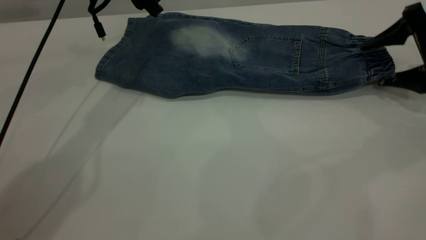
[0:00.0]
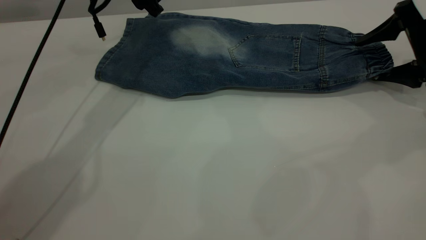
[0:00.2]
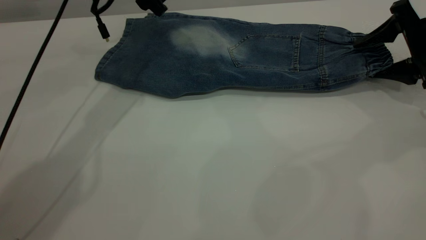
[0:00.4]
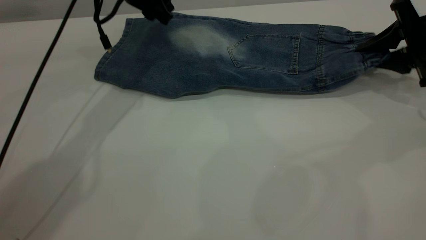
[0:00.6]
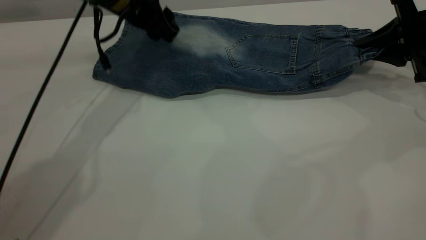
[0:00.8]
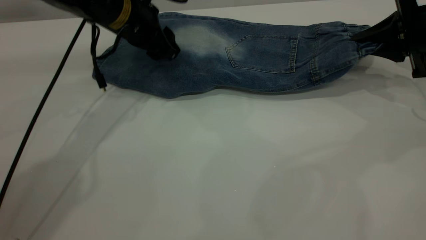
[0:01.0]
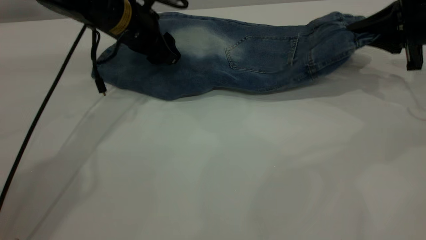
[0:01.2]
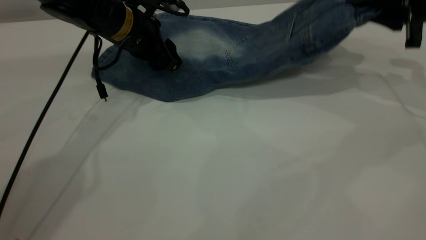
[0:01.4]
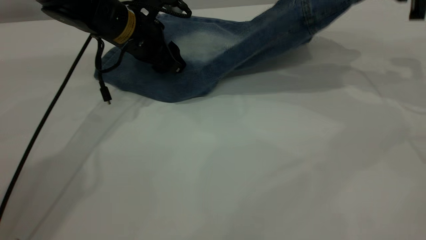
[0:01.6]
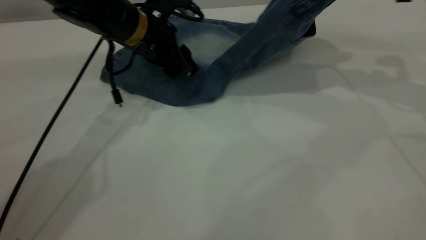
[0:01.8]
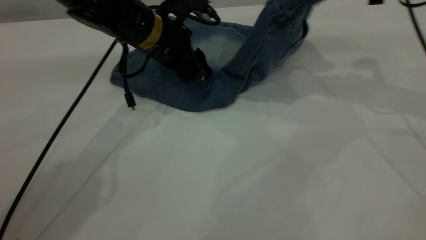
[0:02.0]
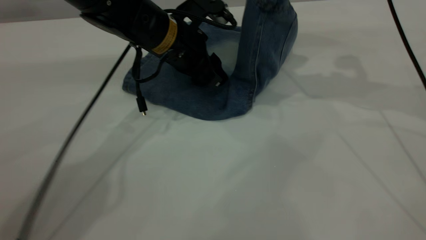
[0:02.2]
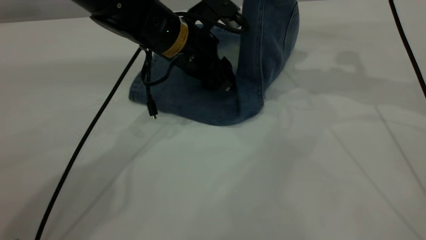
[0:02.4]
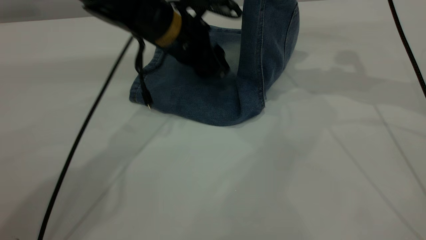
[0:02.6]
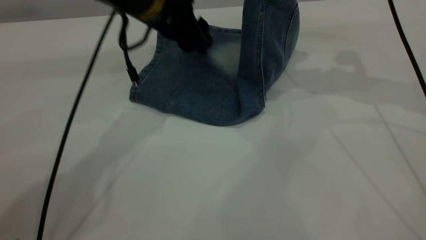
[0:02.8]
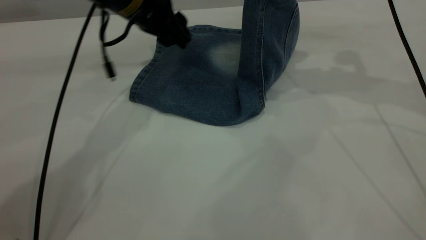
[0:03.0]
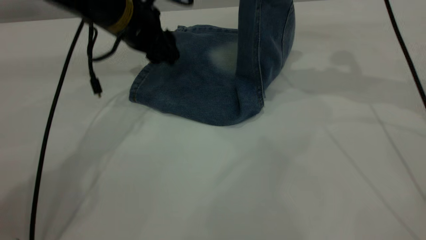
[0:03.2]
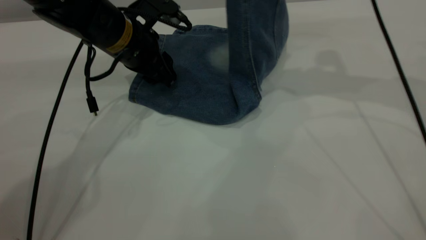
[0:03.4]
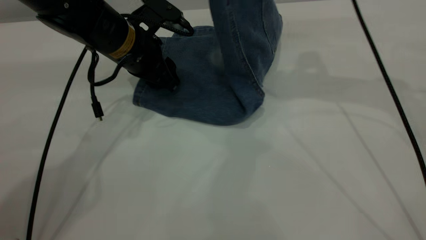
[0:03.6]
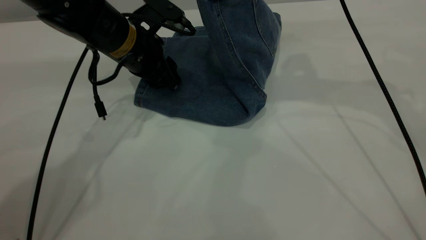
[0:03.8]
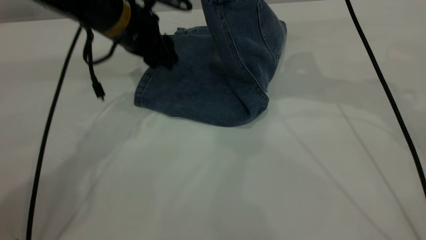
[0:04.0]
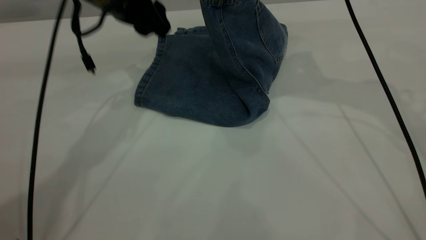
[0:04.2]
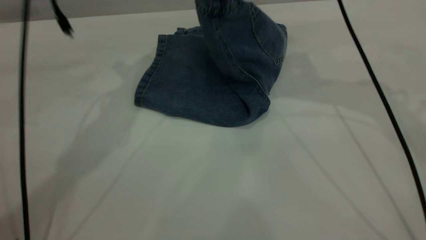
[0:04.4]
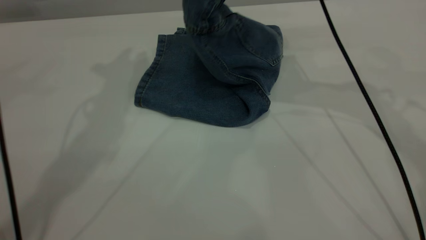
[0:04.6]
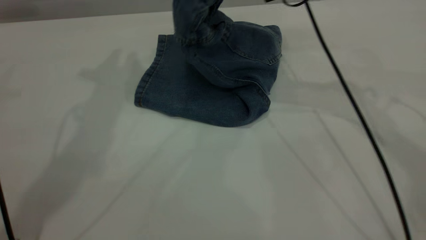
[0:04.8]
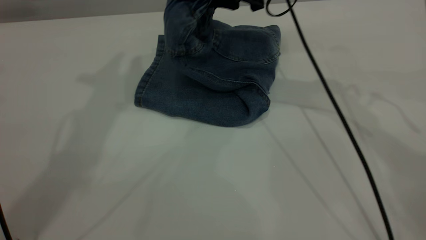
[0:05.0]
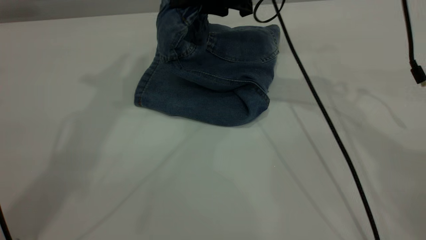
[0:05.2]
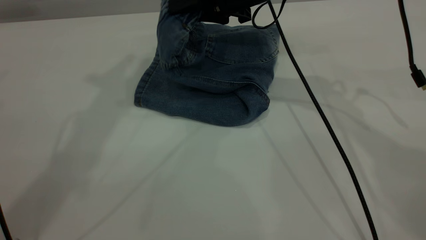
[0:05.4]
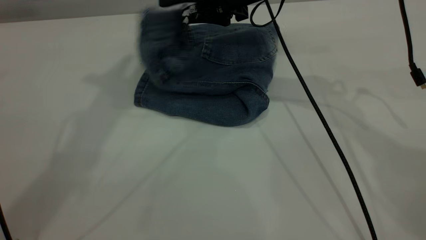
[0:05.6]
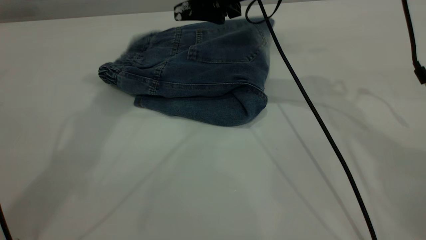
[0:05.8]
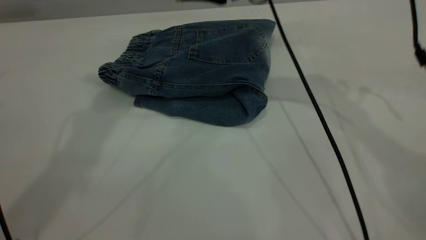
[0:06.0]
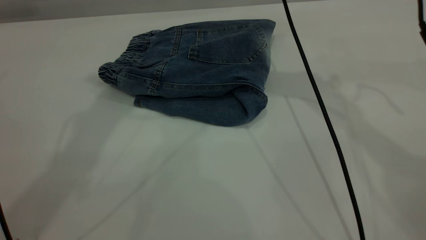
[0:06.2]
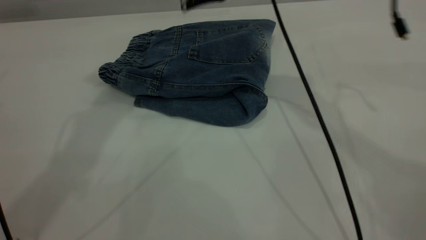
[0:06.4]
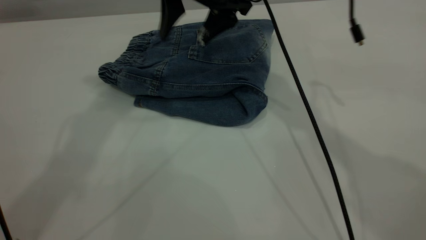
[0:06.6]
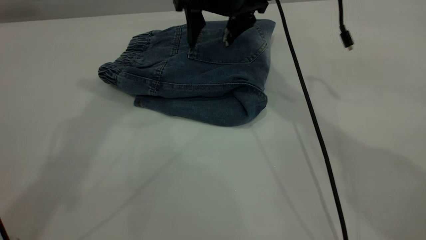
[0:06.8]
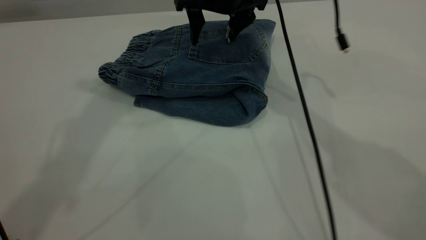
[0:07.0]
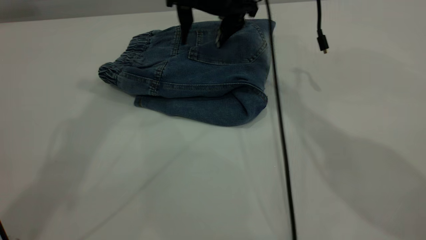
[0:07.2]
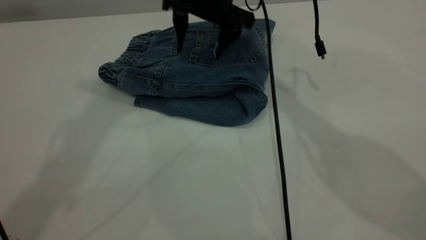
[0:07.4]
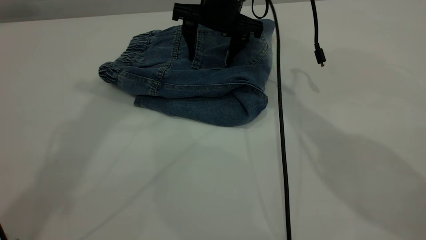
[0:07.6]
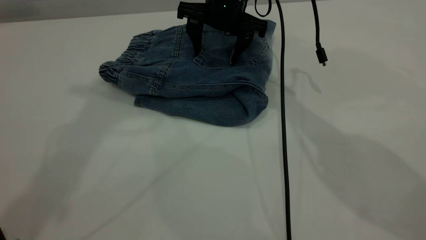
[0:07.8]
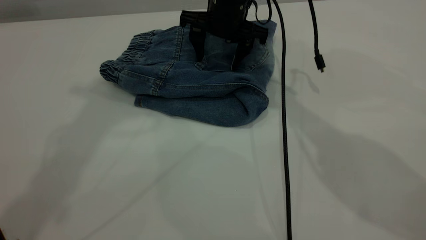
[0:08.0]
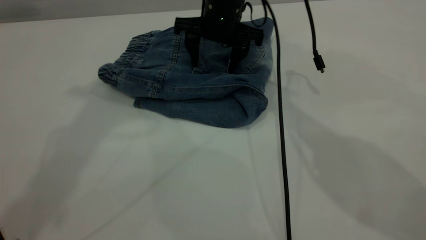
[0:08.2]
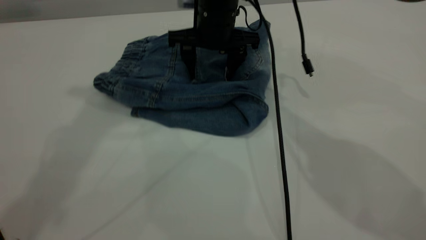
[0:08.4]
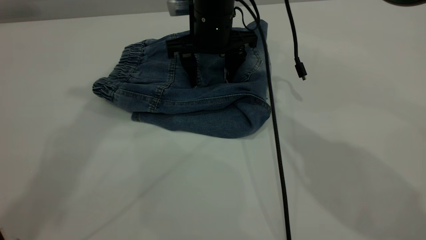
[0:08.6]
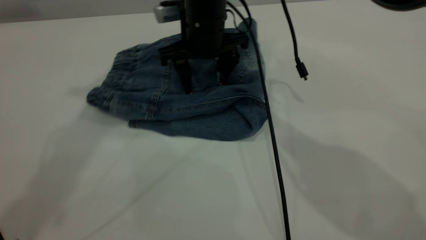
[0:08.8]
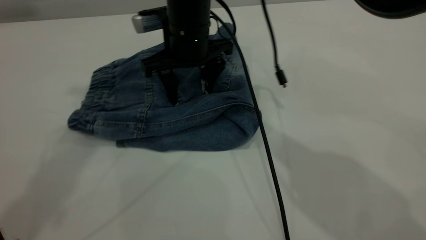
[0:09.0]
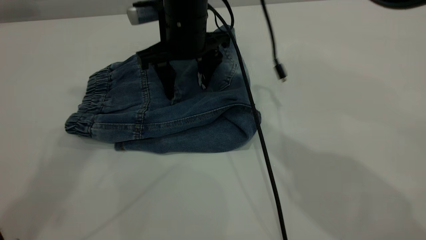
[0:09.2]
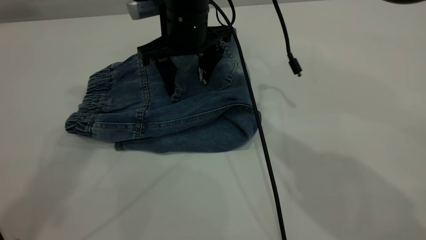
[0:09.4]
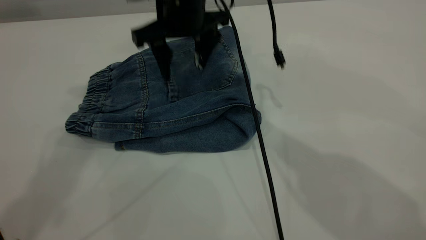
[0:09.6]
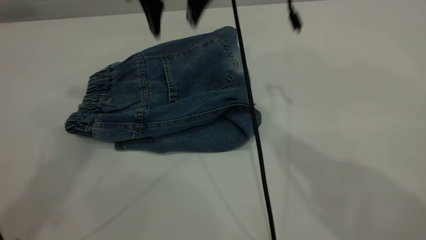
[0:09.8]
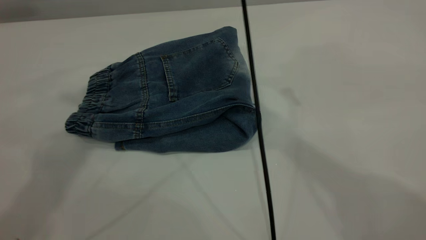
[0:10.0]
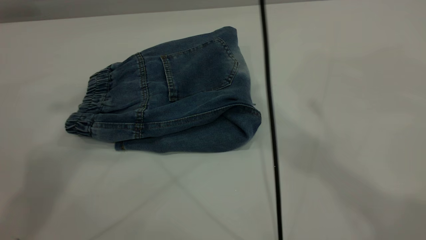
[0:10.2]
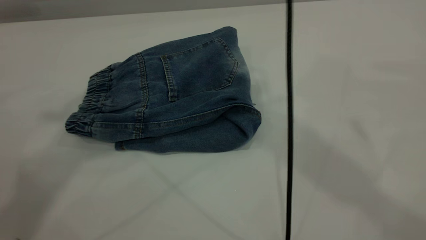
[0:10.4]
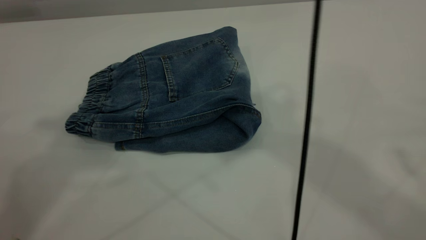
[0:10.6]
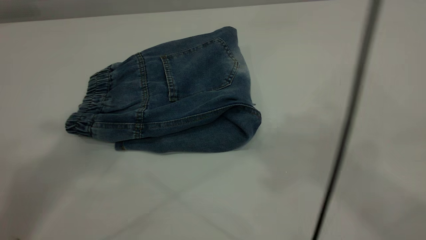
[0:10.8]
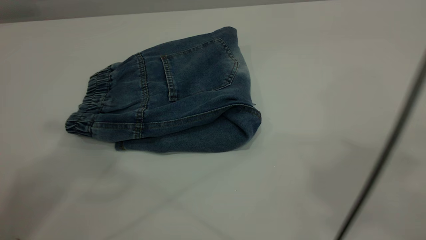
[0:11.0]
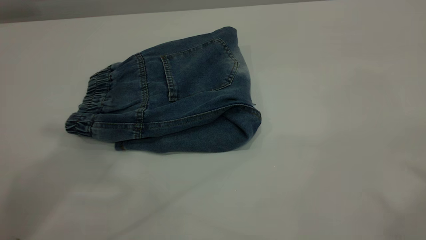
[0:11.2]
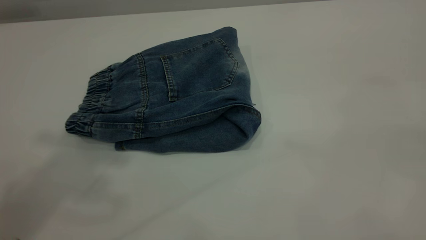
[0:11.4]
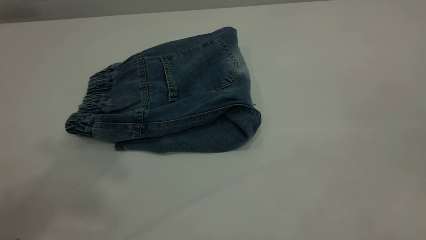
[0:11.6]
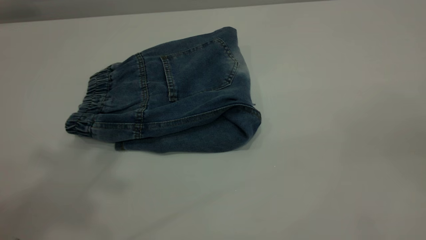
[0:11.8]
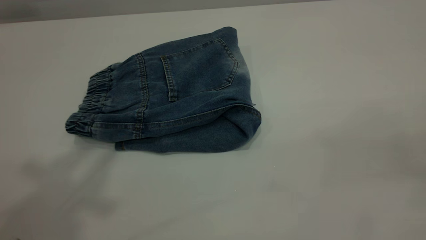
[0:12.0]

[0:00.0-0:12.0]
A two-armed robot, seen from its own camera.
Step, 0.0 to 6.0 s: Fold your pants from right to left.
0.0 to 1.6 s: The right gripper heads upward, covering some 10 cm, and closes its fingers. The left gripper travels downward and backward by about 10 cm.
1.6 to 3.0 s: The right gripper shifts roughly 10 cm to the left. Meanwhile the left gripper goes to the right and returns, roughly 10 cm each way.
3.0 to 4.4 s: The right gripper travels to the left by some 10 cm. The left gripper shifts some 10 cm upward.
4.4 to 6.0 s: The left gripper goes about 15 cm upward; the right gripper heads to the left, covering roughly 10 cm, and opens.
6.0 to 7.6 s: The right gripper travels downward by approximately 5 cm.
7.6 to 9.0 s: The right gripper moves backward and to the left, some 10 cm.
9.0 to 10.4 s: The left gripper moves upward and backward, some 10 cm. The right gripper goes some 35 cm upward.
10.4 to 12.0 s: The right gripper travels backward, to the right and downward by approximately 40 cm.

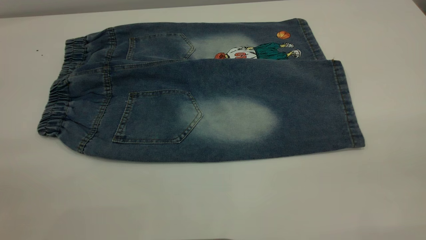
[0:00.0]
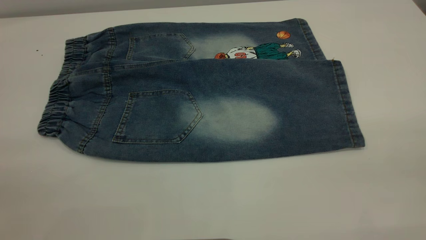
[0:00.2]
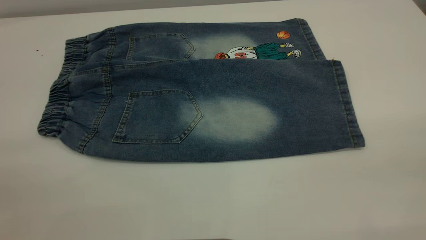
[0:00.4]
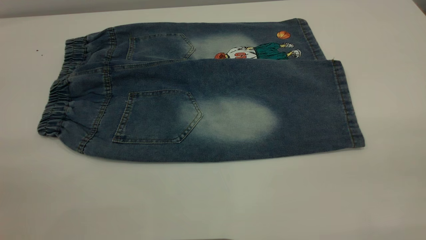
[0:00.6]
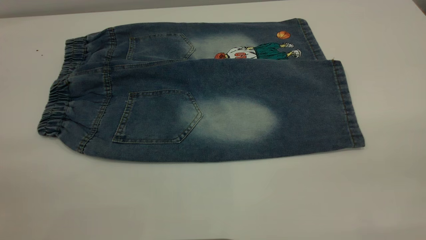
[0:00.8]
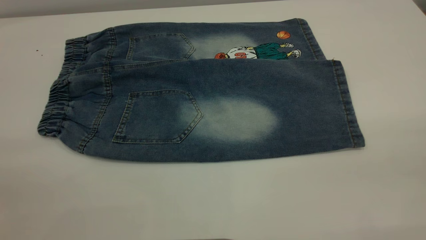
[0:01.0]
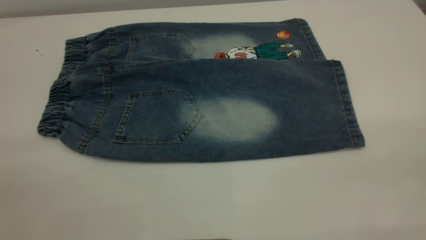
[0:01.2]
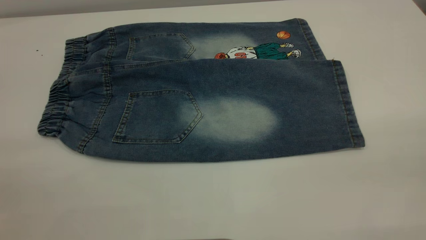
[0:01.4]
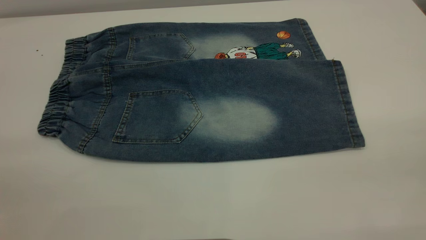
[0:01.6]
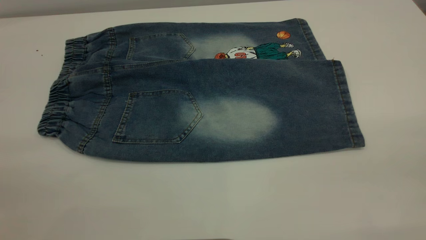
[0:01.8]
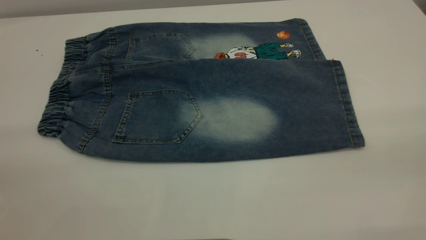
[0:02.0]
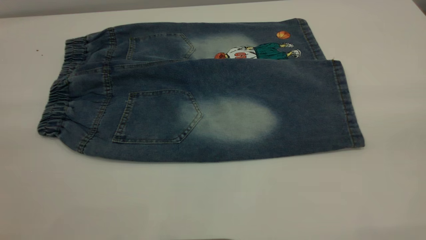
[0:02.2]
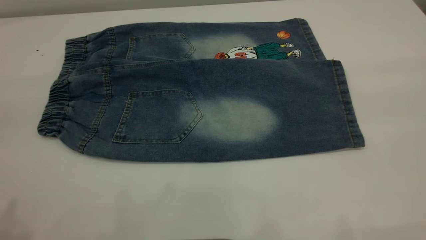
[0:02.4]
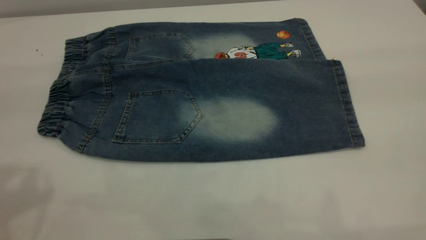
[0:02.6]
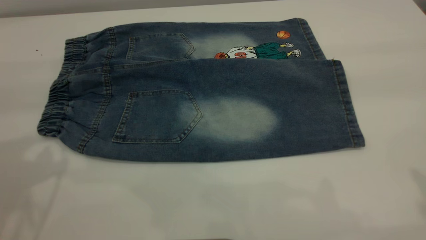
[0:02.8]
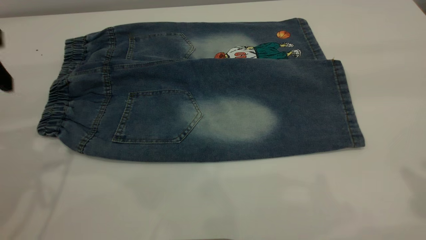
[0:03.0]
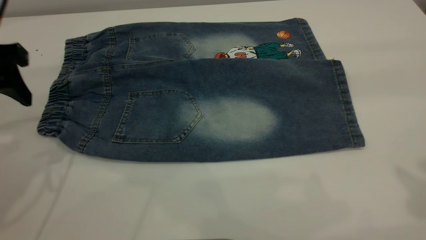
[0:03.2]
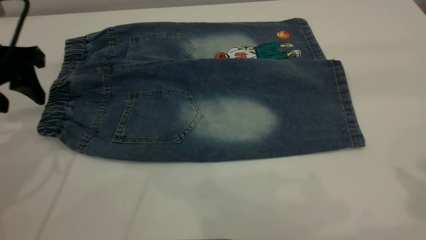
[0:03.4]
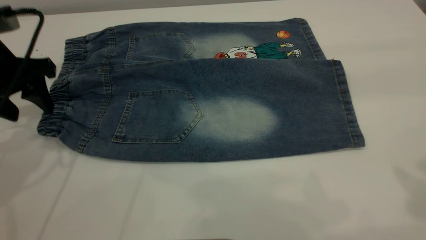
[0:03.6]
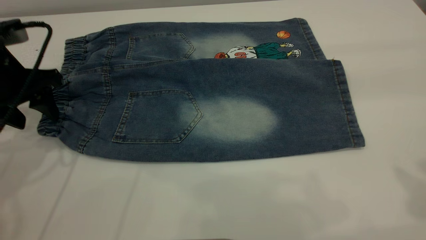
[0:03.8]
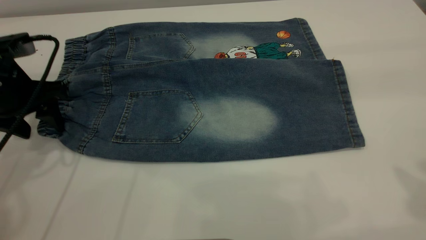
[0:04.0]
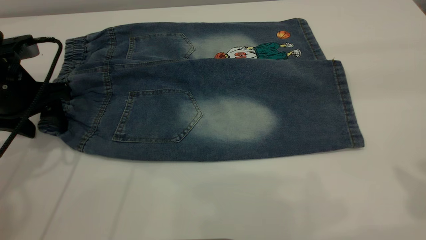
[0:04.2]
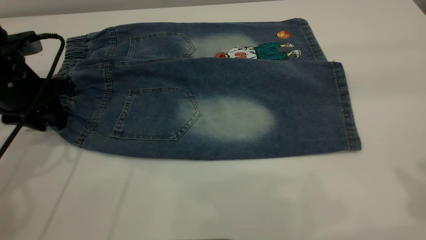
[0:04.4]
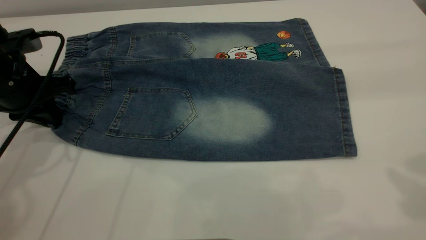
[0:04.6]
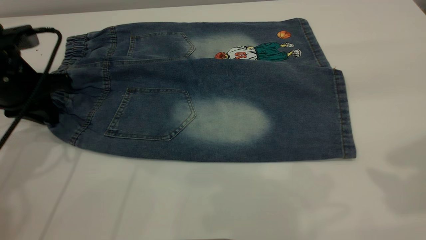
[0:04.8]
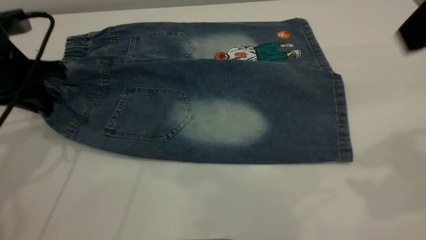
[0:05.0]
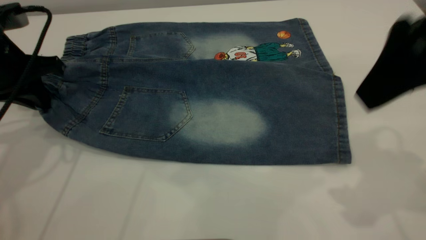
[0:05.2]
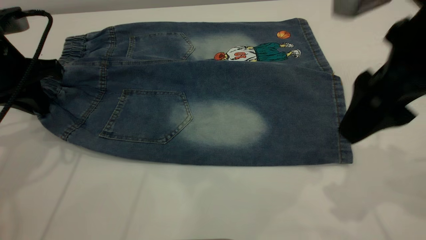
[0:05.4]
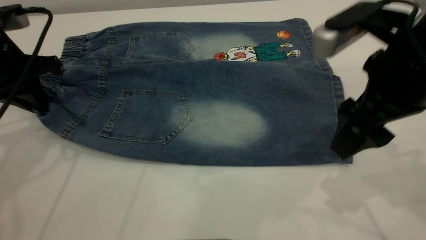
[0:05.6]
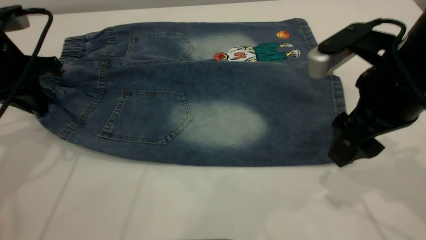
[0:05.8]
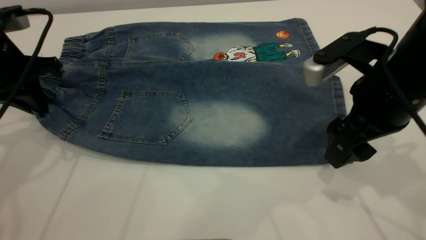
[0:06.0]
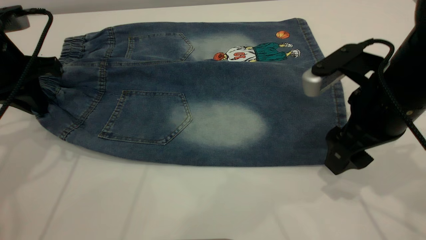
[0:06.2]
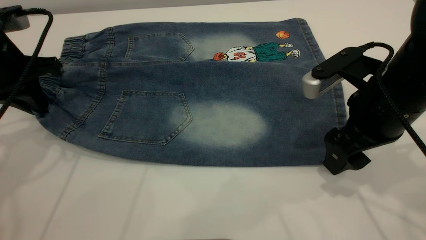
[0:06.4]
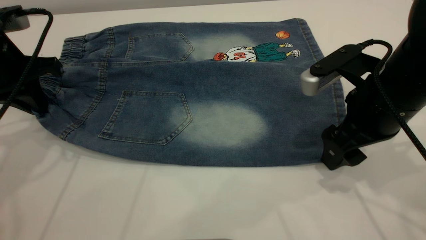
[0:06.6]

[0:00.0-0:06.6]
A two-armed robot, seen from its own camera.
0.0 to 1.6 s: The two grippers keep their place.
1.6 to 3.2 s: The left gripper is displaced forward and downward by some 30 cm.
3.2 to 5.0 s: The left gripper changes place by some 5 cm, and closes, while the right gripper moves downward, approximately 5 cm.
5.0 to 6.6 s: The right gripper goes approximately 20 cm downward.
